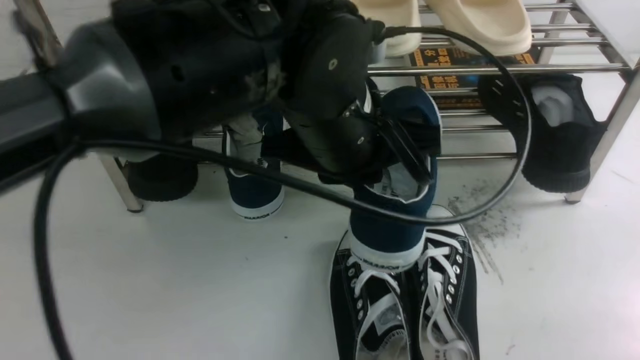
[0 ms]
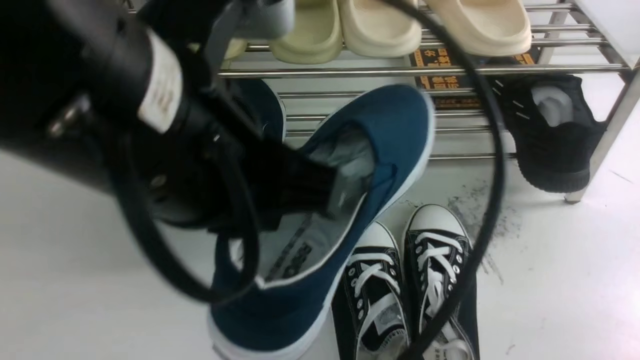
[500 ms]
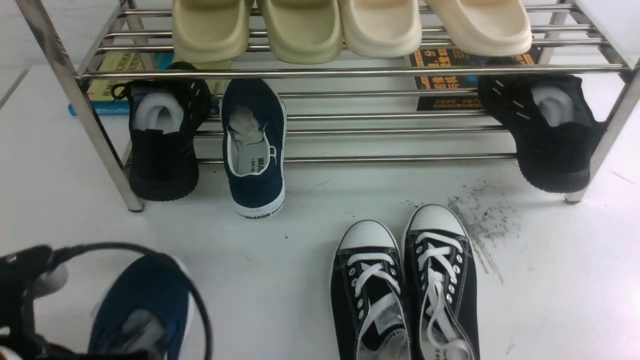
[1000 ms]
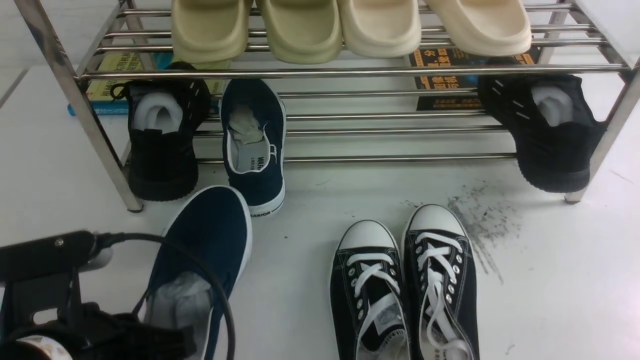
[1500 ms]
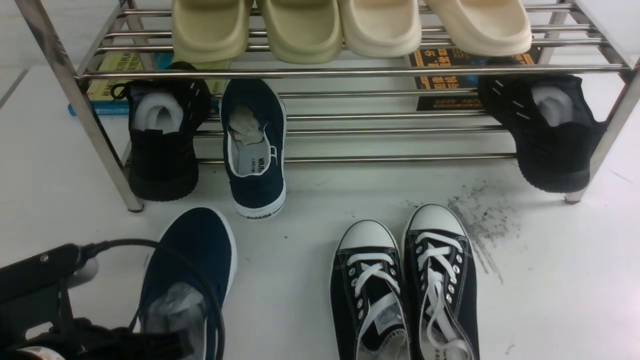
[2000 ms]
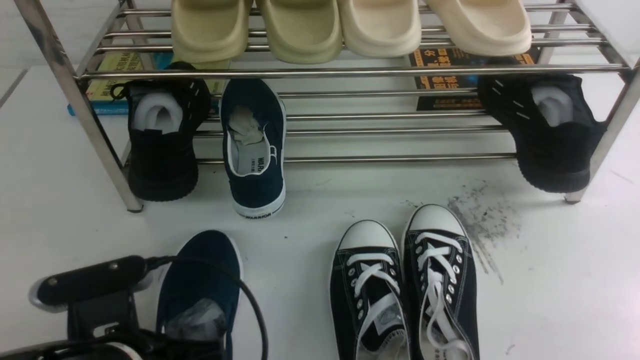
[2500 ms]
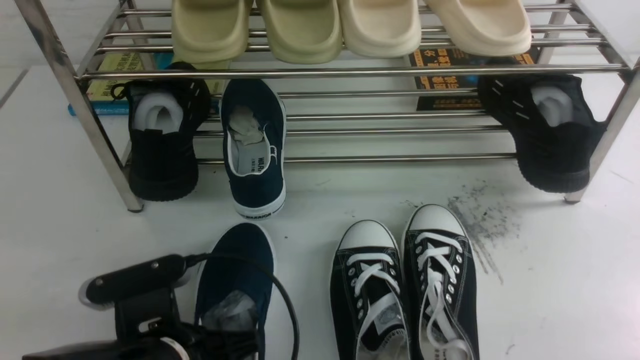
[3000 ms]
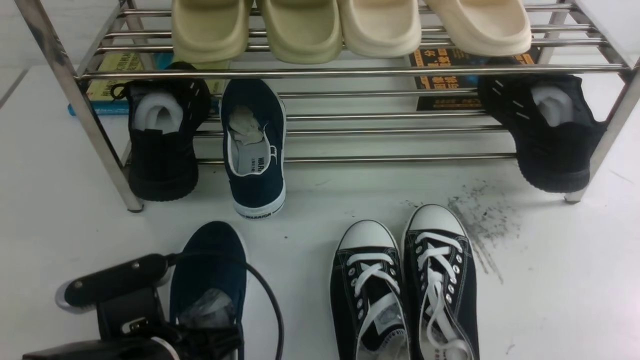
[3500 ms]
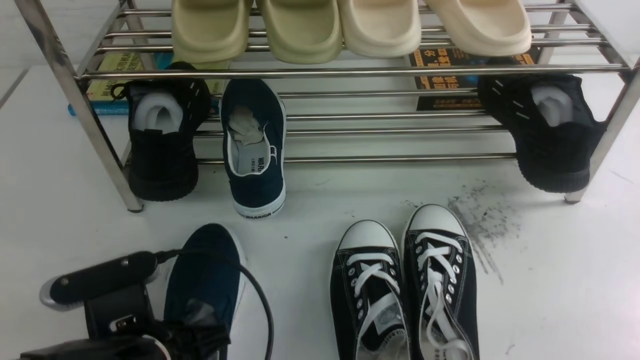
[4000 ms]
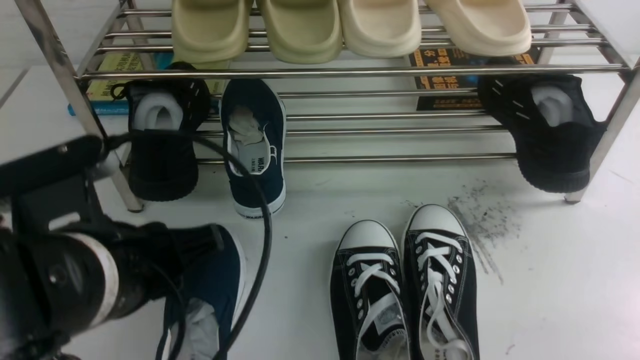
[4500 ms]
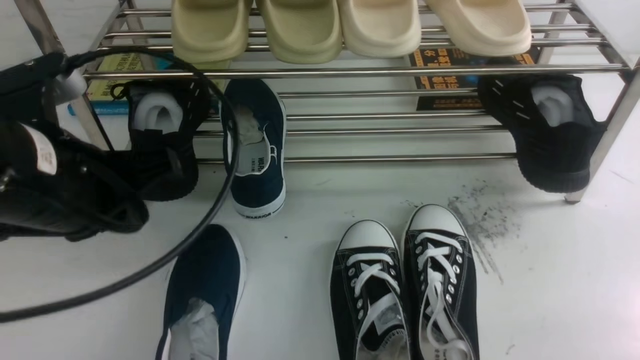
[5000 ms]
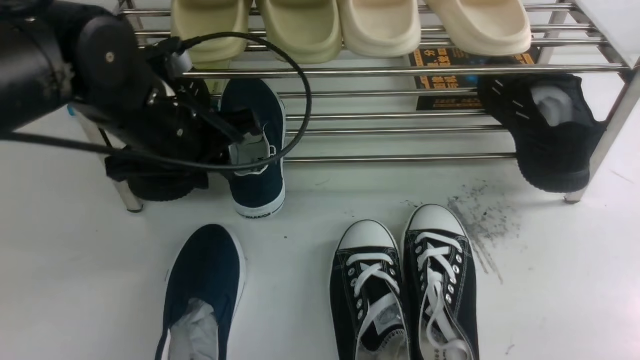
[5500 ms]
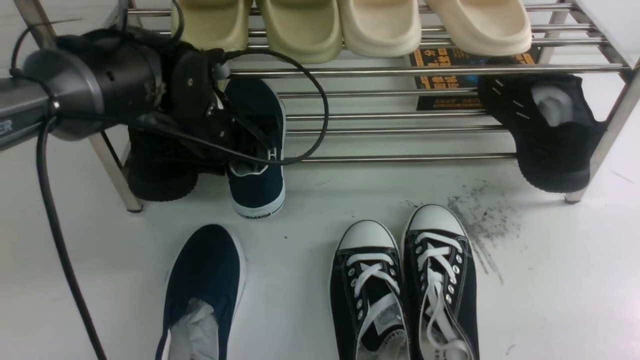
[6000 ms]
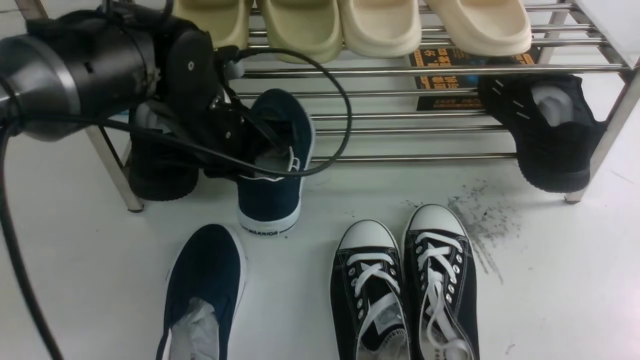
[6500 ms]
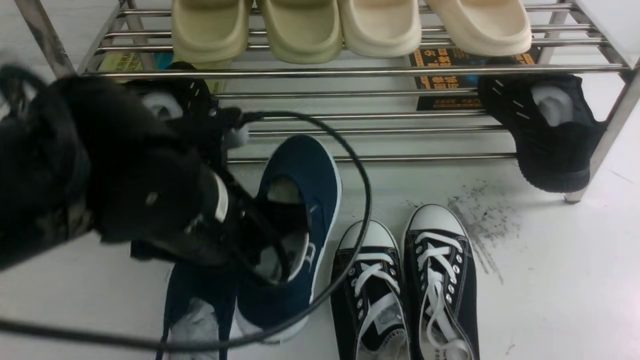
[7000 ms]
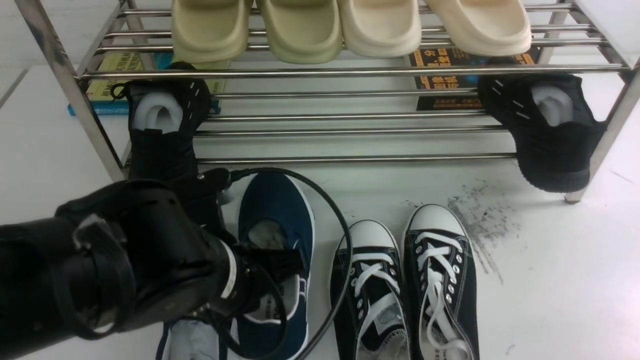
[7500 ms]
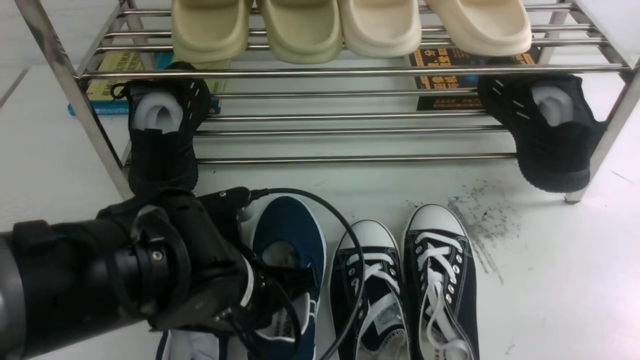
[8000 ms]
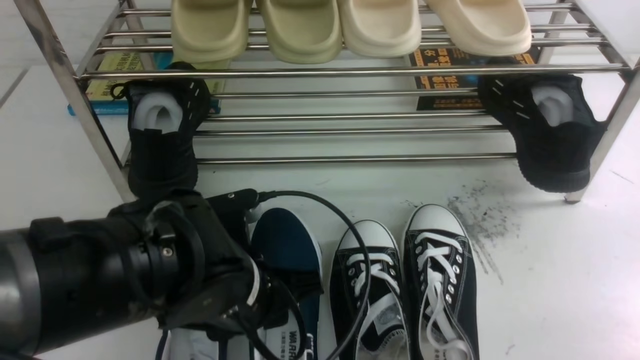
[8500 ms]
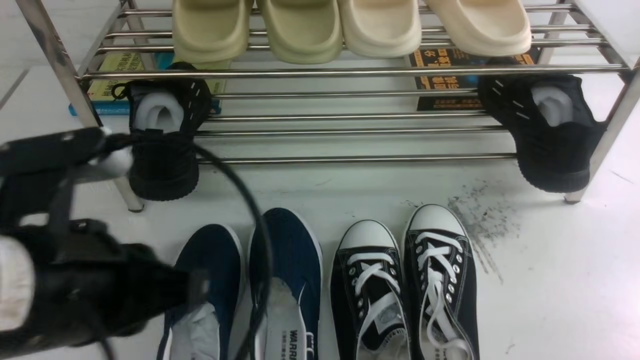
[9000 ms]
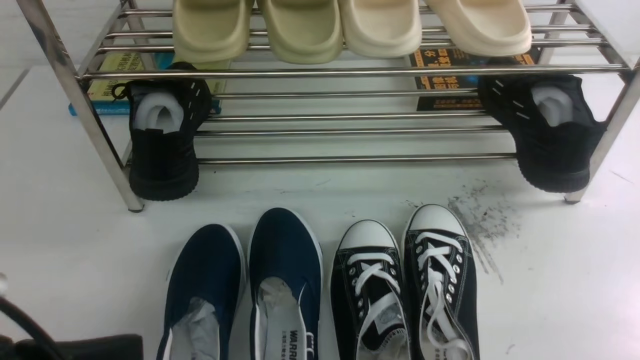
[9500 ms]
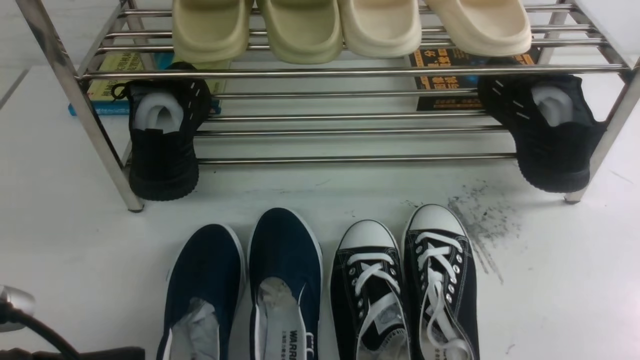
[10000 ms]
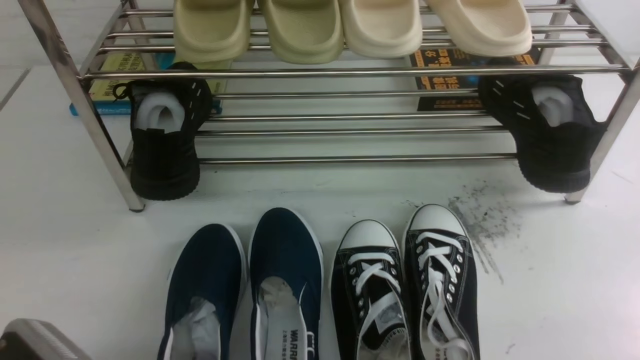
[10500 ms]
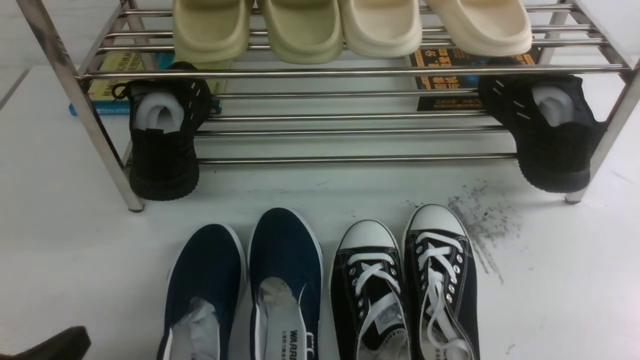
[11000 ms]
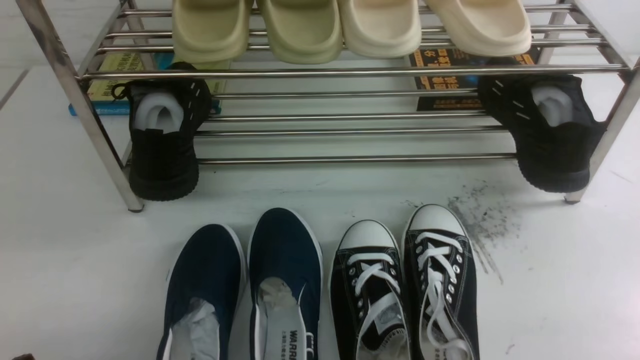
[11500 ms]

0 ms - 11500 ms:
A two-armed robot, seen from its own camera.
Step, 0 ms - 4000 ms: Use your left arm to remove the clamped shoe from the shoe rack and put it down.
Step, 4500 ms - 6500 ms: use the left arm to clamp a shoe on the left side of the shoe rack.
Step, 7000 ms - 8500 ms: Use your left arm to remove the clamped shoe from the shoe rack and put it down.
0 ms - 2000 ms: The left gripper heads to the left, backward and downward, covering some 25 cm.
2000 ms - 4000 ms: The left gripper shifts by roughly 5 cm, and opens its fingers.
4000 ms - 6000 ms: The left gripper goes approximately 20 cm forward, and closes, then reopens.
6000 ms - 7500 ms: The left gripper travels backward by approximately 15 cm, and closes.
7500 ms - 9500 ms: The left gripper heads to the left and backward, covering roughly 15 cm, and opens, then closes again.
9500 ms - 11500 ms: The left gripper goes approximately 10 cm downward and to the left.

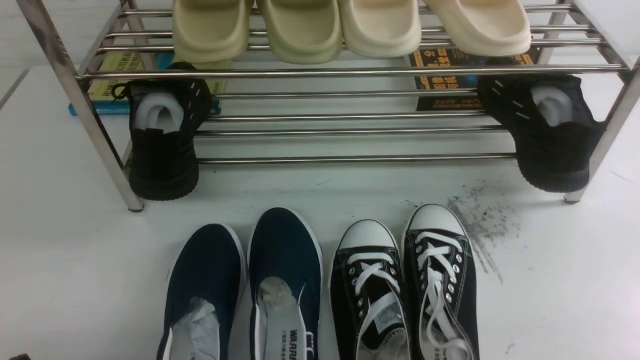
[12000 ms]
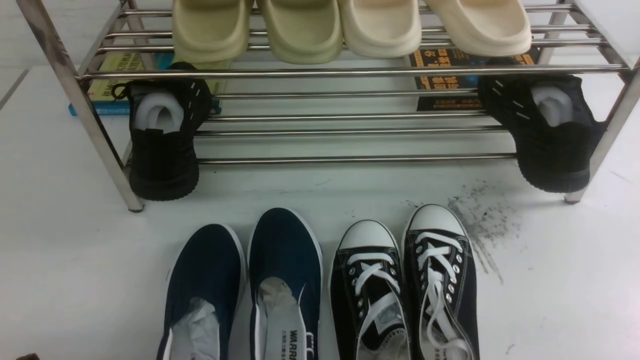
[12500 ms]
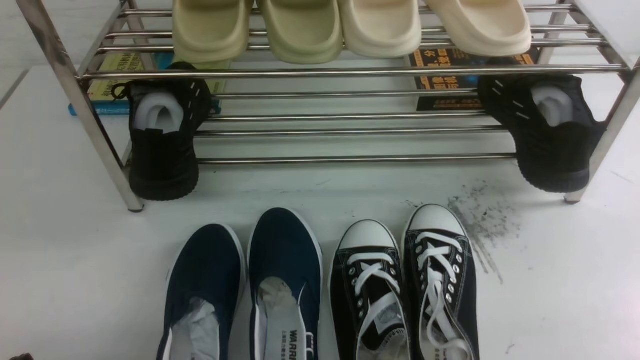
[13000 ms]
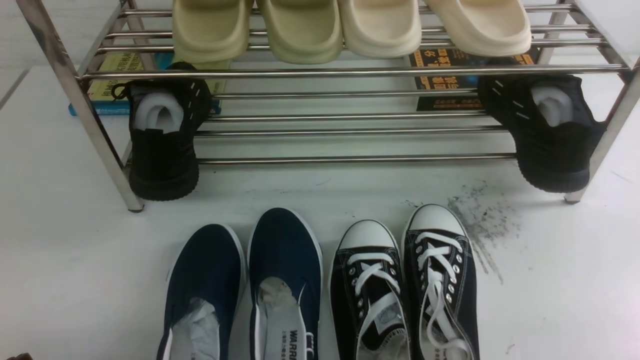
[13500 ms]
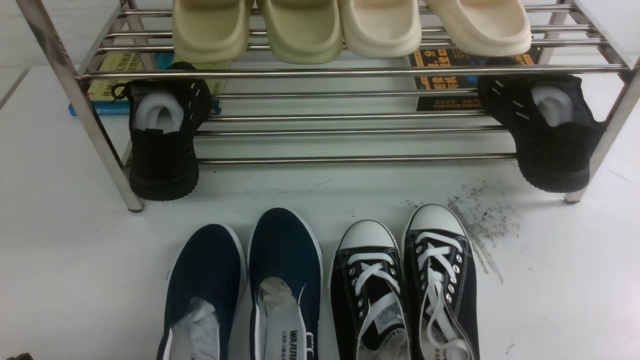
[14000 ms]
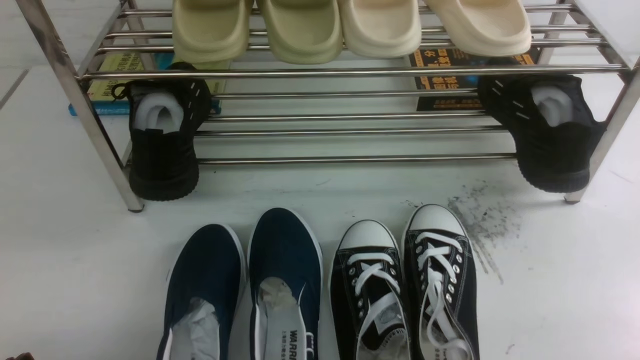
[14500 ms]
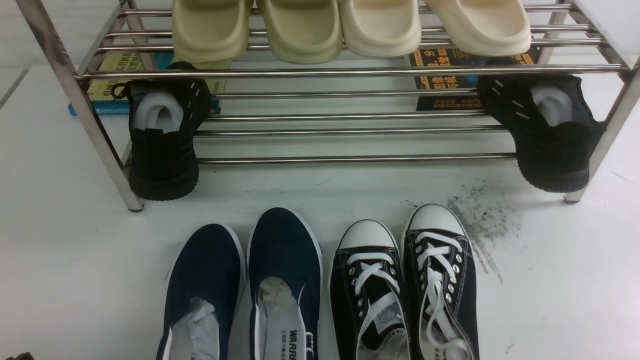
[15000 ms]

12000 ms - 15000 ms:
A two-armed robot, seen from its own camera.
12000 ms - 15000 ms: The two grippers keep their place.
